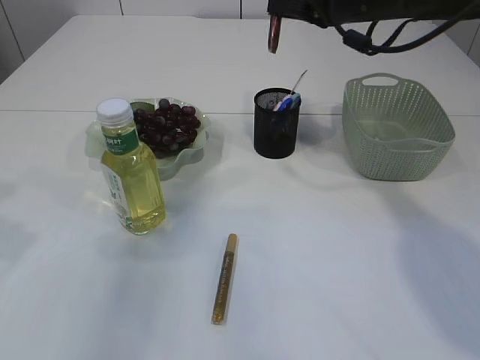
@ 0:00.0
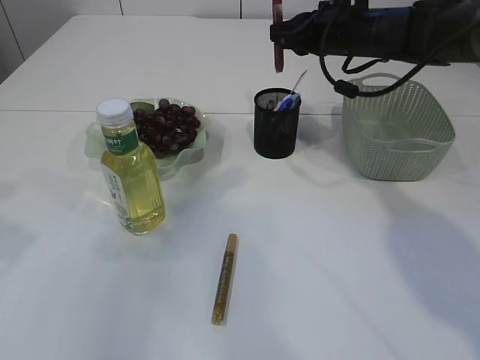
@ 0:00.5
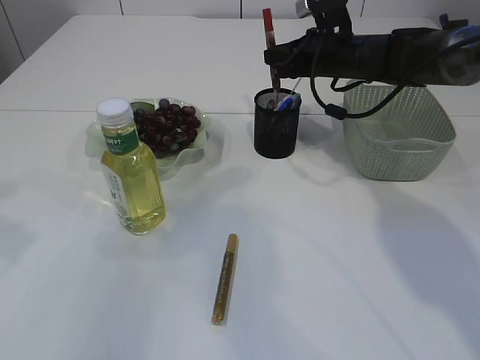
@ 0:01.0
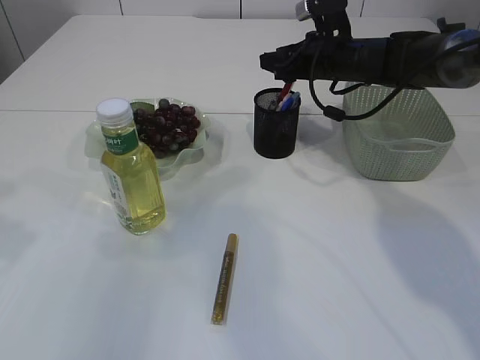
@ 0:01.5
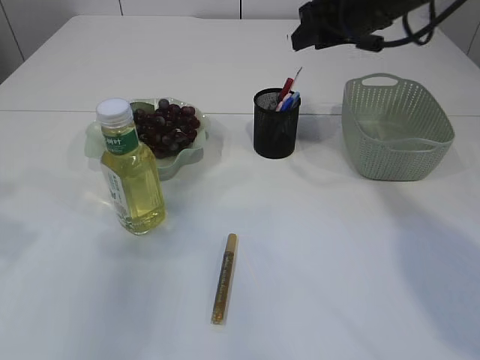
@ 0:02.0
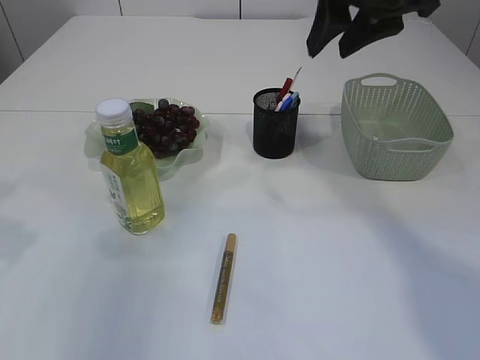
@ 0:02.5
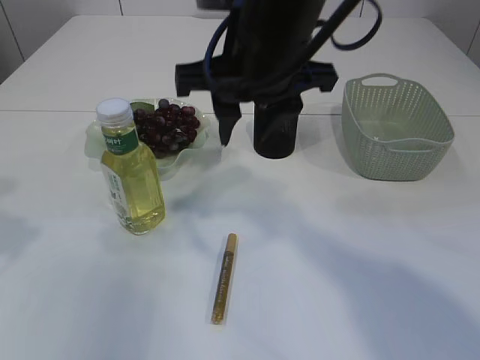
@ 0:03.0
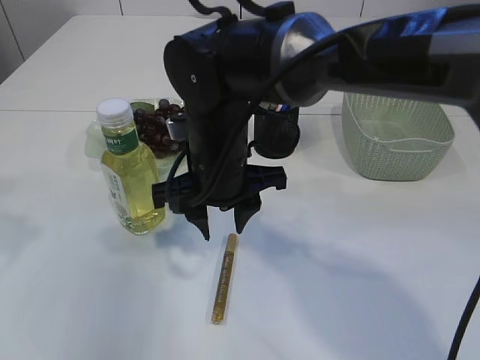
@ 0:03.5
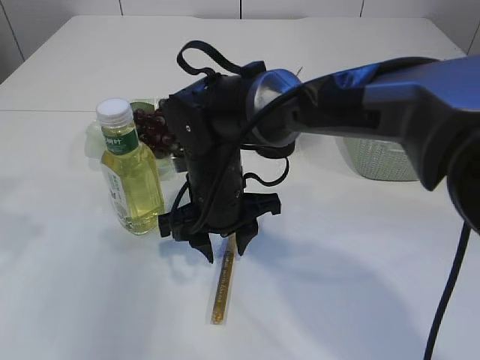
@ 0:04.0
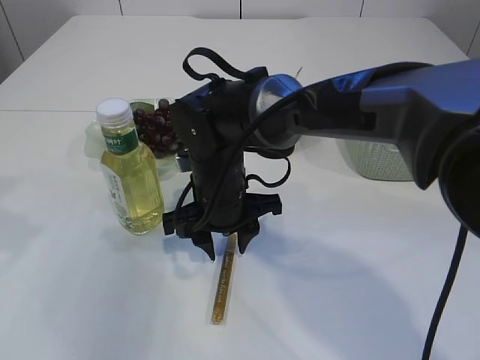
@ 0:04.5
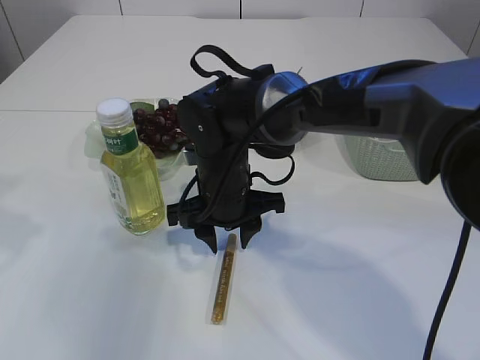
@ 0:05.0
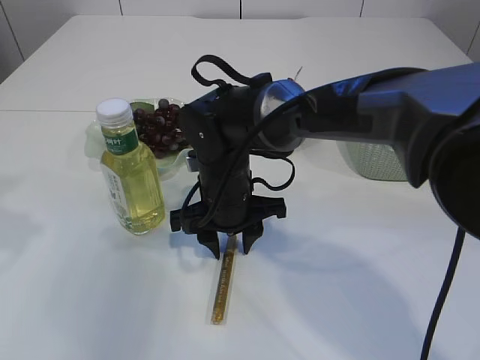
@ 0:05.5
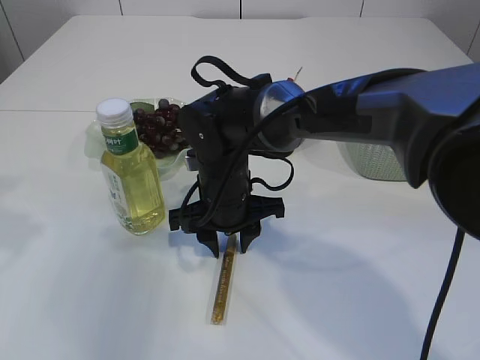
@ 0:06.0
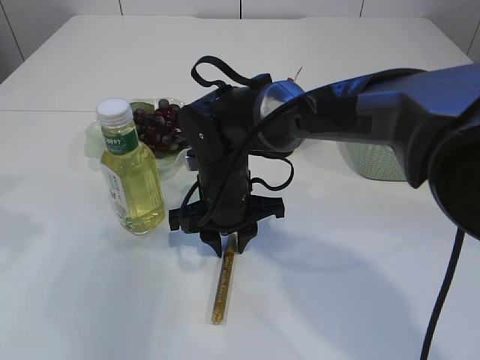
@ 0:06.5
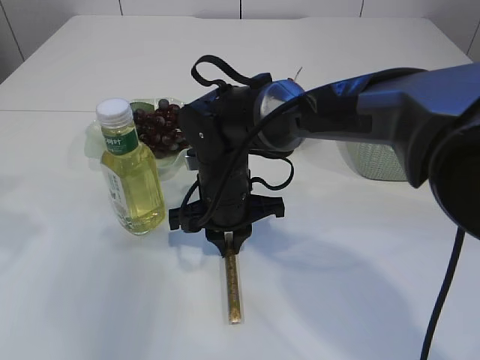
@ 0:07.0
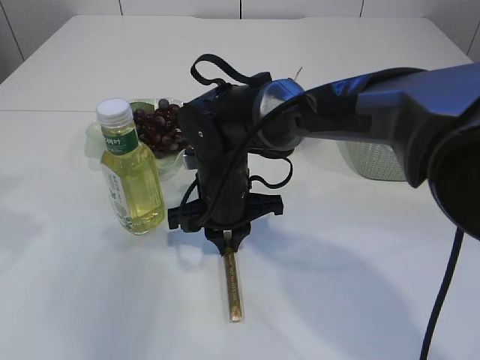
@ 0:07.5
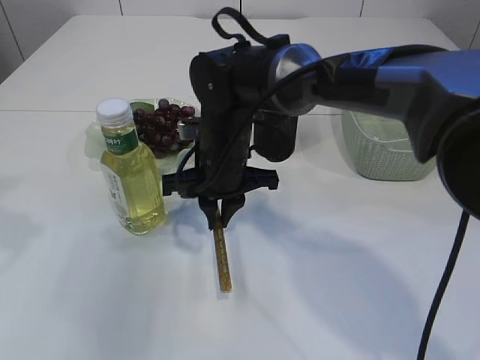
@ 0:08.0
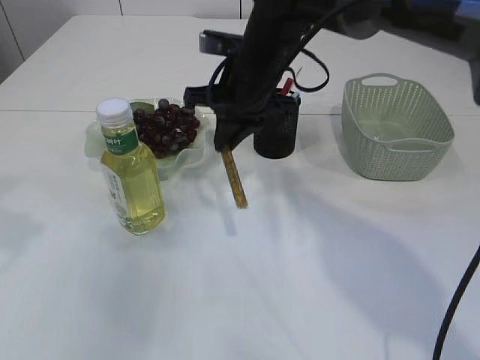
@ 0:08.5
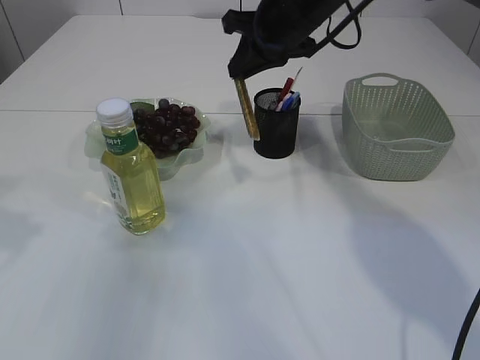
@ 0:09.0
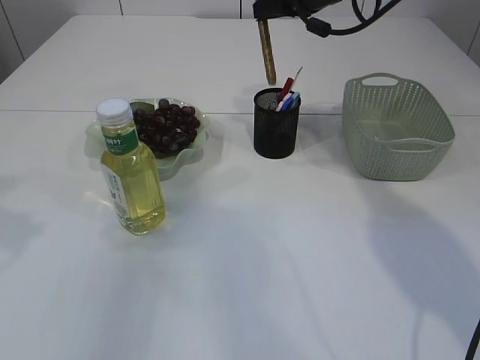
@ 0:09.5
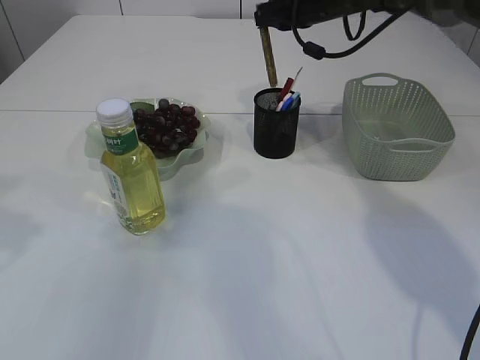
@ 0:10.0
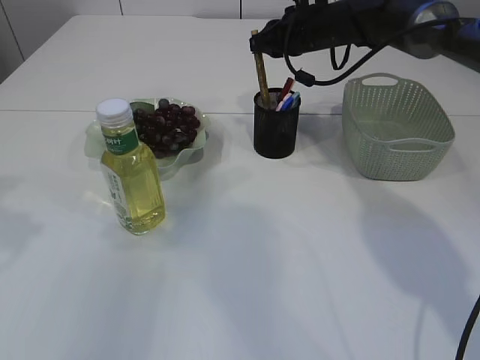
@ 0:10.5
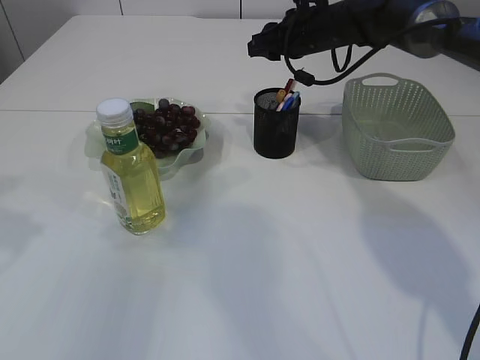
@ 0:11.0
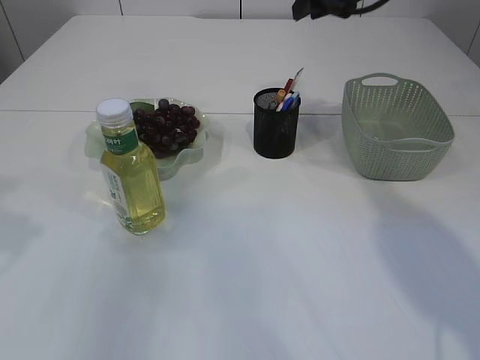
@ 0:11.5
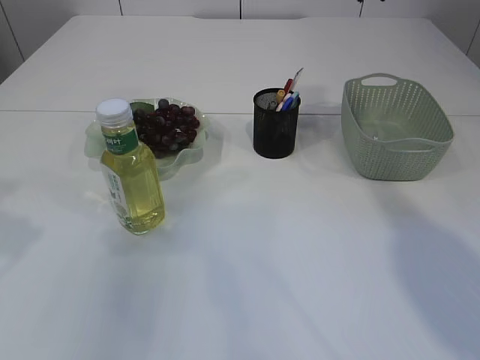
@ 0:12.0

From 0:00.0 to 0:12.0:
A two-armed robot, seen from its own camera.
Step, from 0:00.0 to 0:01.5: place the red glue into the pen holder.
Step, from 0:02.0 to 0:08.0: pick up the yellow glue.
Step, from 0:08.5 to 0:11.0: place the yellow glue into the pen holder.
From 0:00.0 to 0:02.0: The right gripper travels downward and back again, approximately 10 cm each way, and opens.
From 0:02.0 to 0:04.0: The right gripper shifts approximately 30 cm to the left, downward and backward.
From 0:04.0 to 0:06.0: The grippers move only a little.
From 0:06.0 to 0:08.0: The right gripper closes its fingers.
From 0:08.0 to 0:10.0: The right gripper moves forward, to the right and upward, about 25 cm.
From 0:10.0 to 0:12.0: The right gripper travels upward, backward and to the right by approximately 15 cm, and opens its fingers.

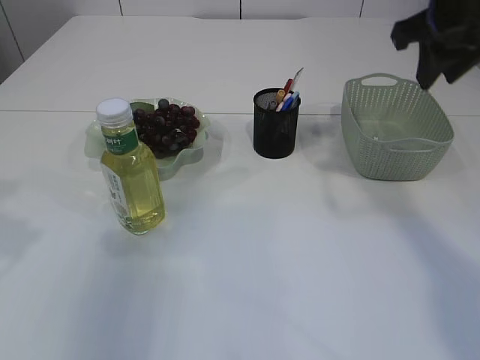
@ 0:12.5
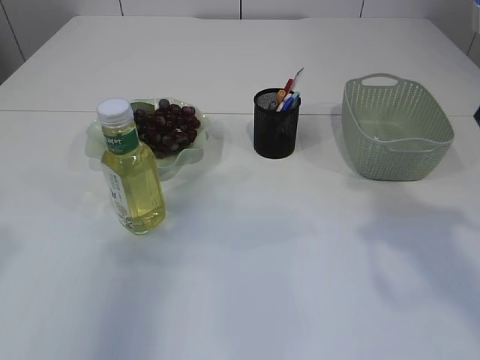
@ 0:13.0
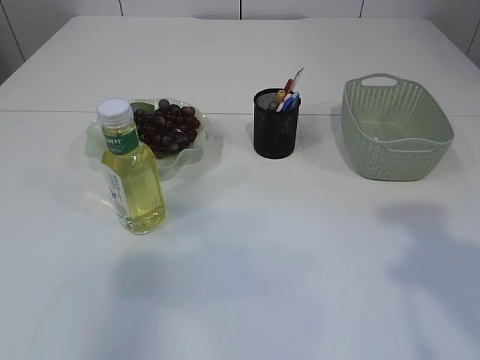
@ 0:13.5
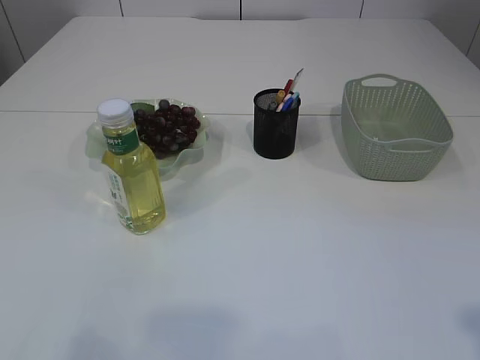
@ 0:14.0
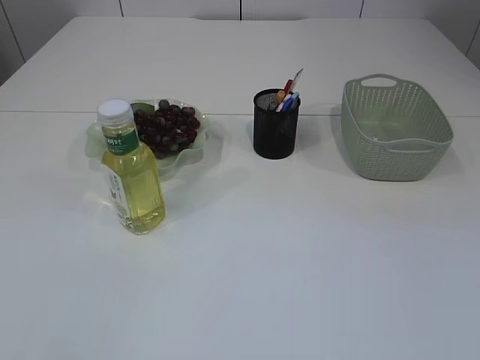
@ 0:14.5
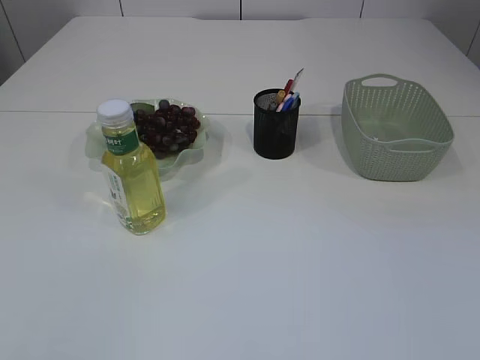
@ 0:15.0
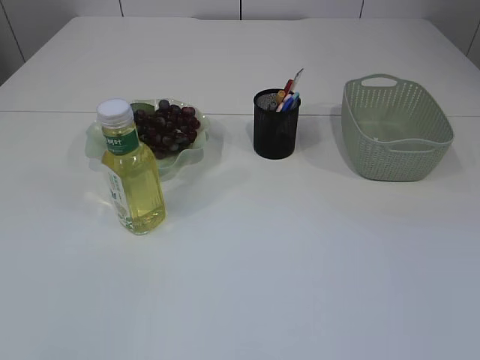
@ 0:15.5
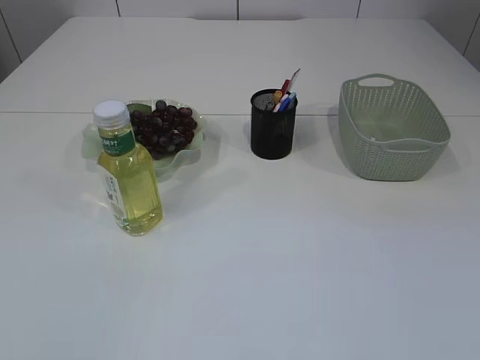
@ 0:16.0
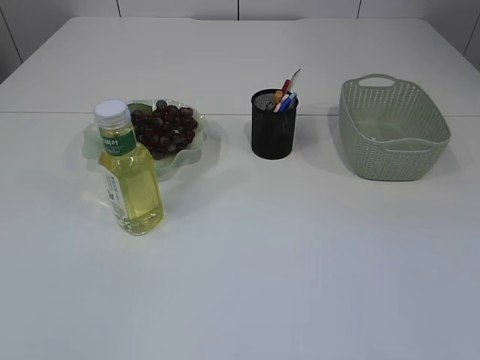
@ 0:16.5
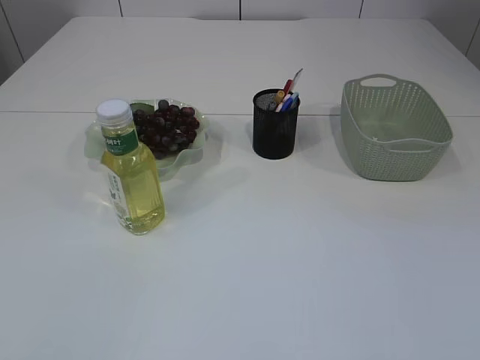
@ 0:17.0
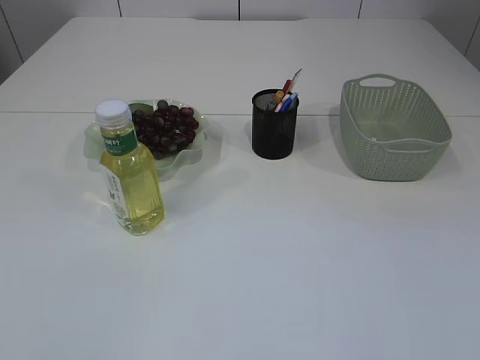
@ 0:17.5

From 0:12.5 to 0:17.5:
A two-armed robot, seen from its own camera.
From 0:12.5 to 0:15.0: Both grippers move backward, approximately 30 cm.
